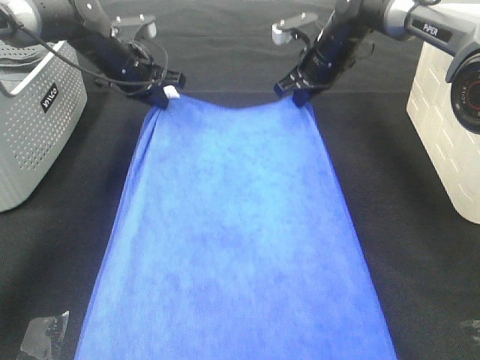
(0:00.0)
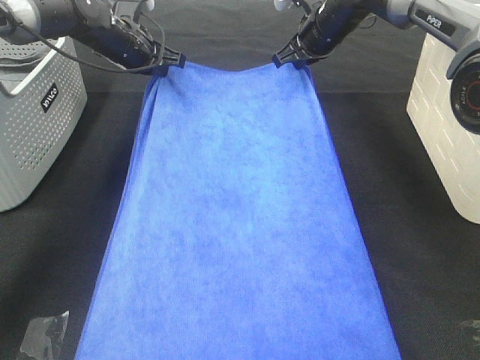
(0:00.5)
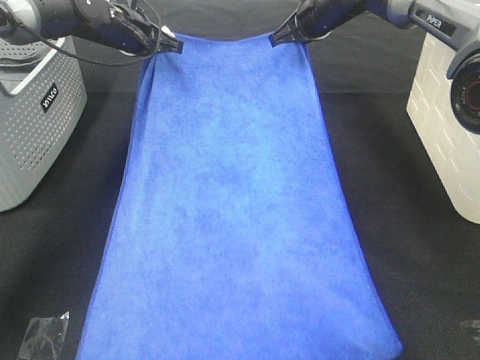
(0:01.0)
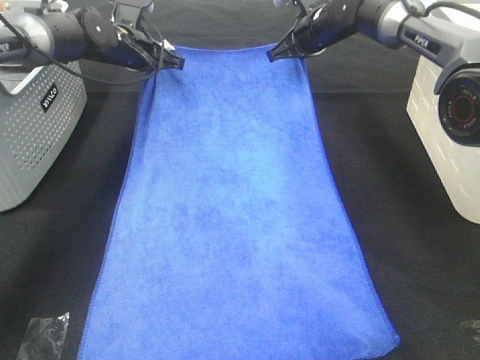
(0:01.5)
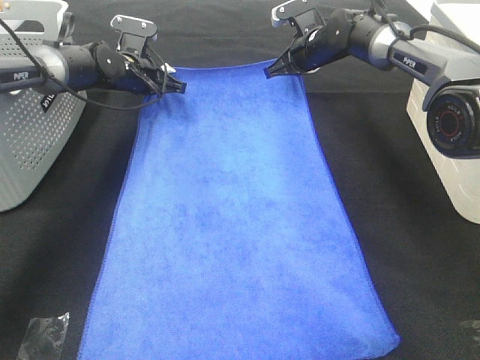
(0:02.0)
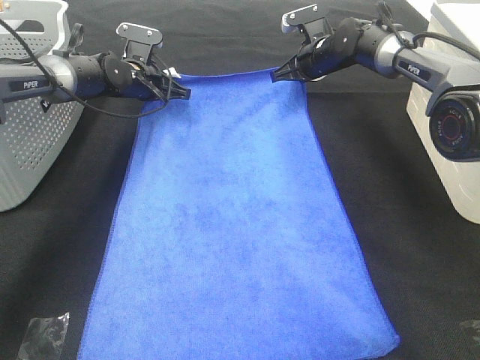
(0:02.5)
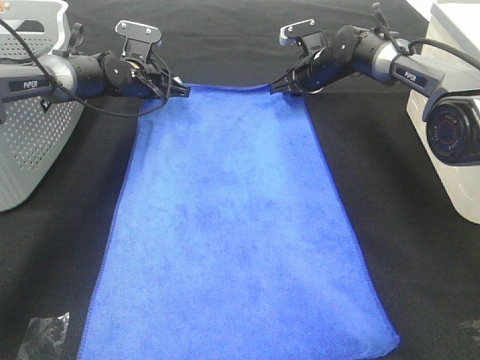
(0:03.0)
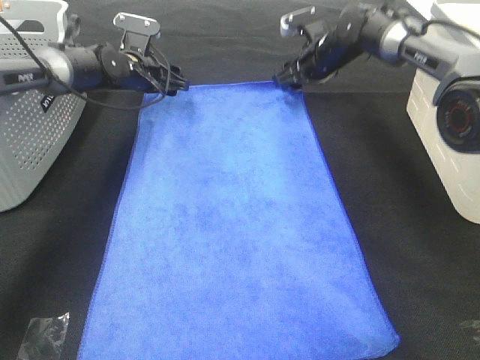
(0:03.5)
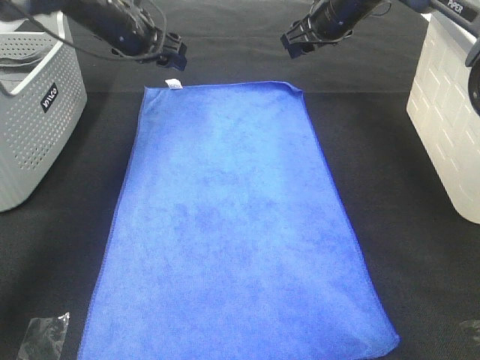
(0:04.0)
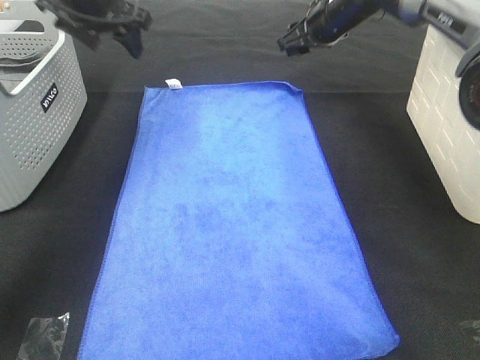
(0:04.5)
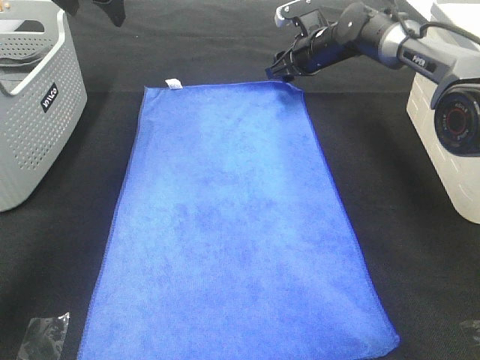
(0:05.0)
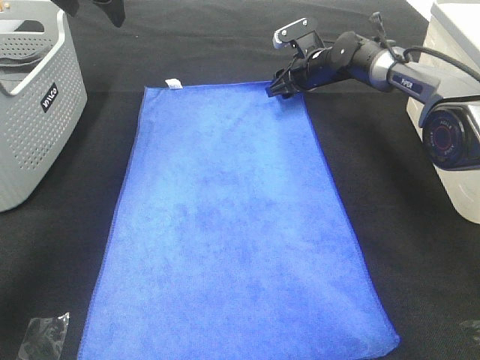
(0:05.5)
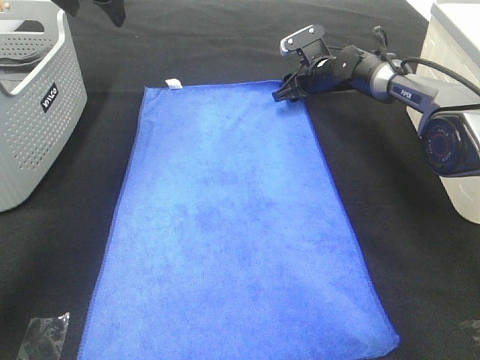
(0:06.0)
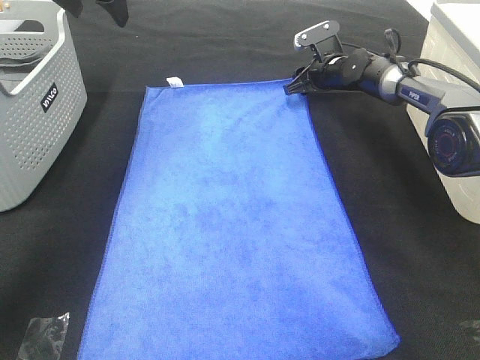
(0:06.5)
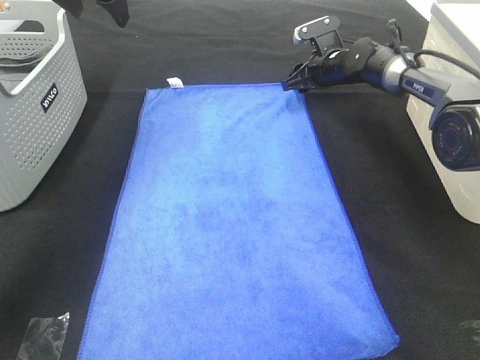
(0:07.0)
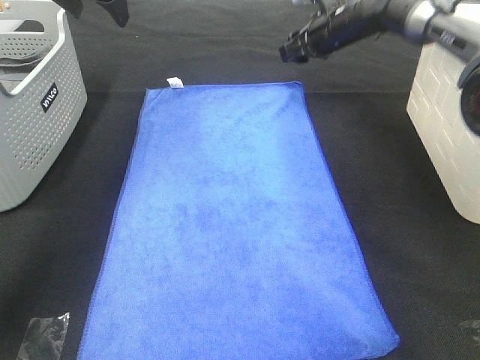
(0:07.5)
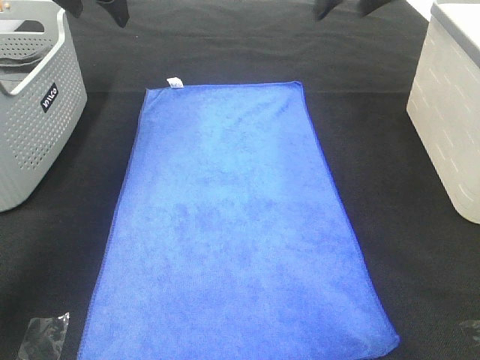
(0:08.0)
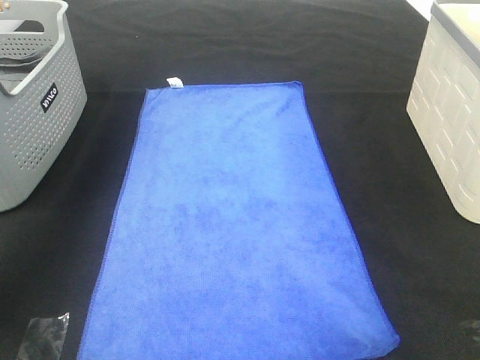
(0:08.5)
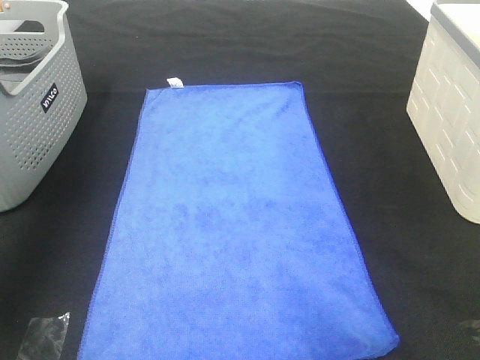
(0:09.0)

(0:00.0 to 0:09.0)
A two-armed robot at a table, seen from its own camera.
Task of the whole recording: Remove the towel and place it.
0:00.0 - 0:02.0: The right gripper moves approximately 5 cm, while the left gripper goes about 5 cm downward.
0:02.0 - 0:04.5: The left gripper is displaced upward and backward by about 20 cm, and opens; the right gripper heads upward, covering some 5 cm, and opens up.
0:04.5 - 0:07.0: The right gripper is displaced downward by some 10 cm.
0:07.0 - 0:09.0: The right gripper is displaced upward and backward by approximately 50 cm. The left gripper goes roughly 25 cm backward, to the left and upward.

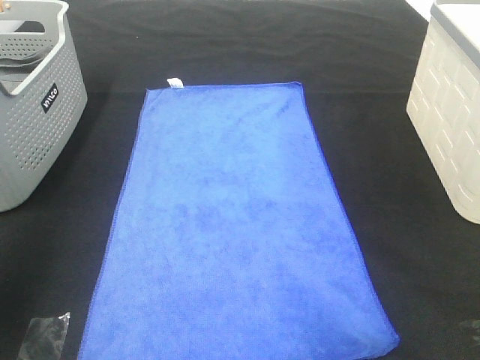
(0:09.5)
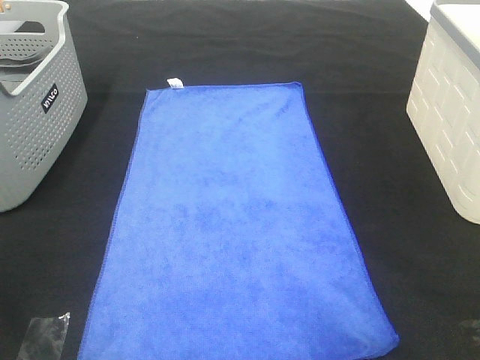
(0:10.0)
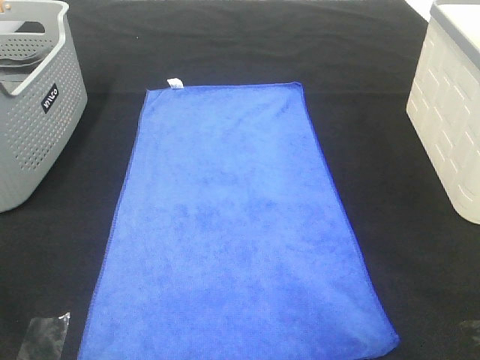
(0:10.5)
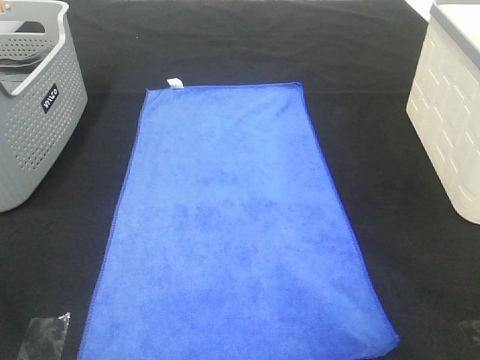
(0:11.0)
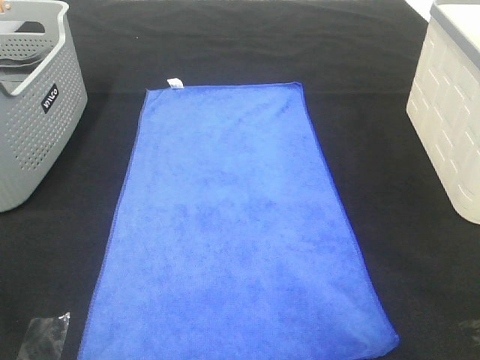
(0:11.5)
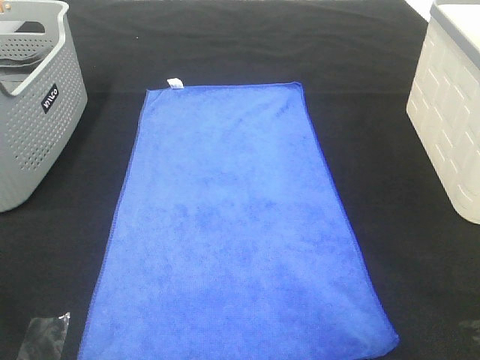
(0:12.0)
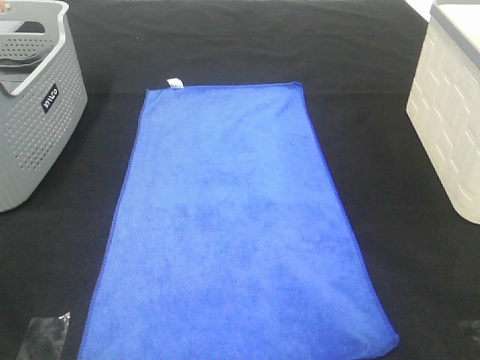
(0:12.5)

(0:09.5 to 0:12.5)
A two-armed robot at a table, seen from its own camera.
Task of the whole recording: Remove the towel and place it.
0:11.0 - 0:12.5: The two grippers keep their place.

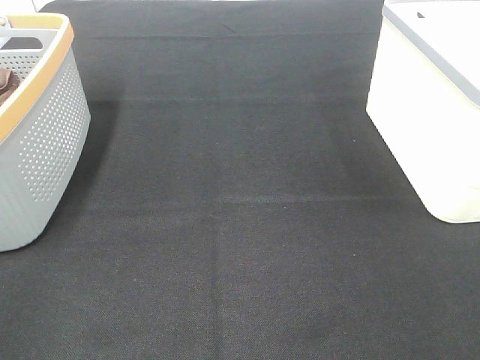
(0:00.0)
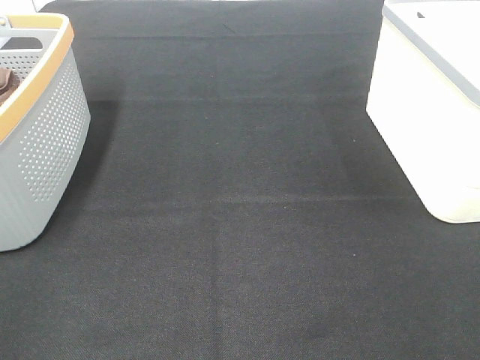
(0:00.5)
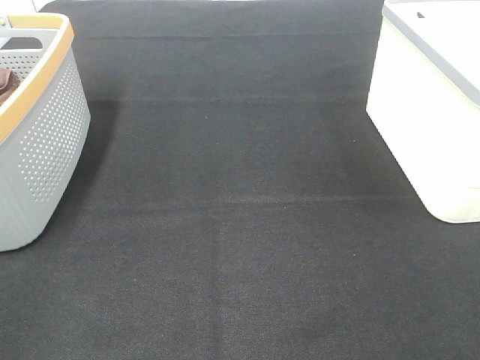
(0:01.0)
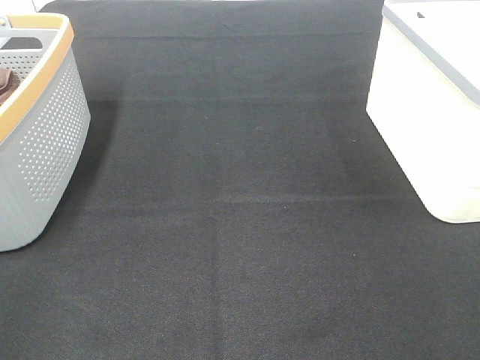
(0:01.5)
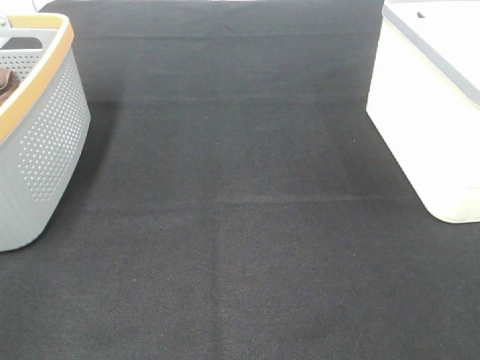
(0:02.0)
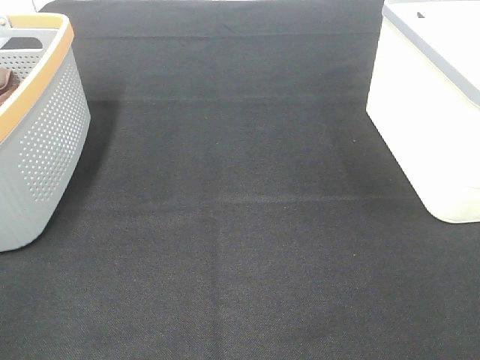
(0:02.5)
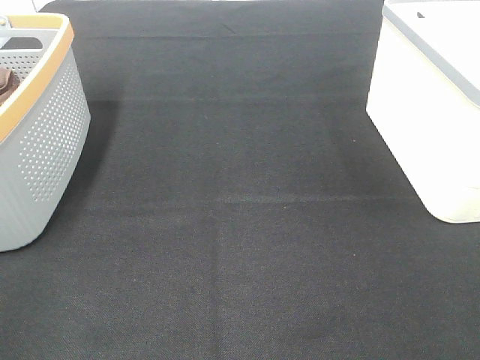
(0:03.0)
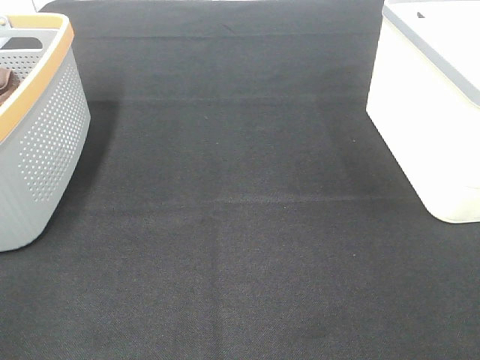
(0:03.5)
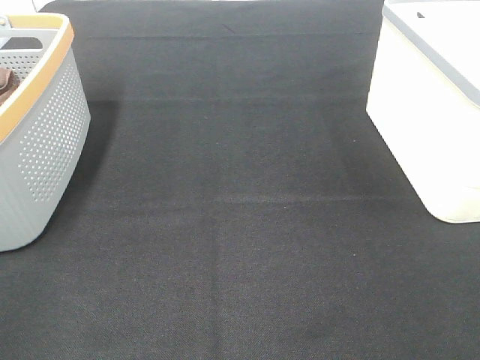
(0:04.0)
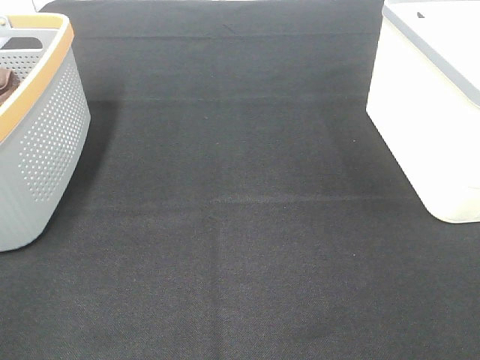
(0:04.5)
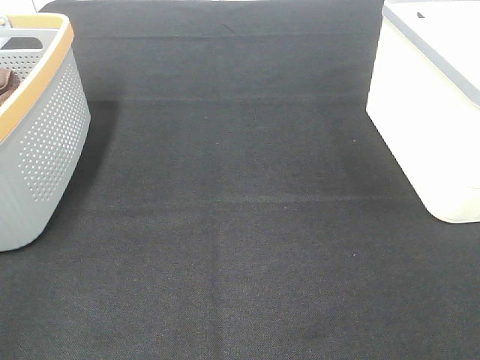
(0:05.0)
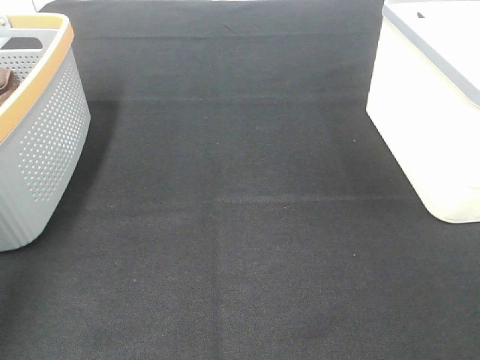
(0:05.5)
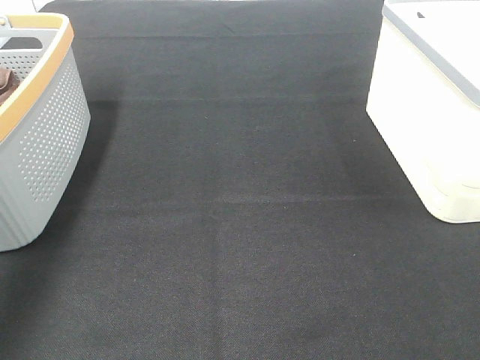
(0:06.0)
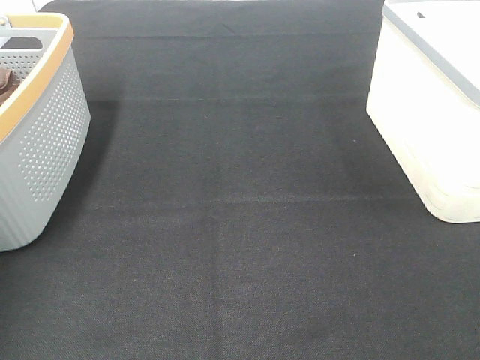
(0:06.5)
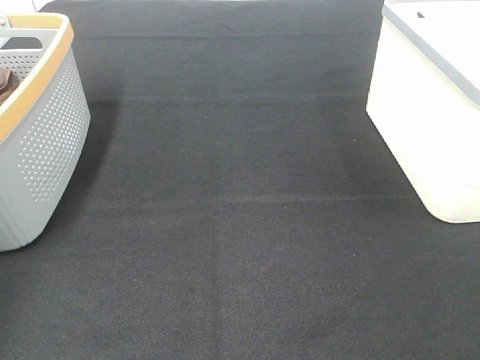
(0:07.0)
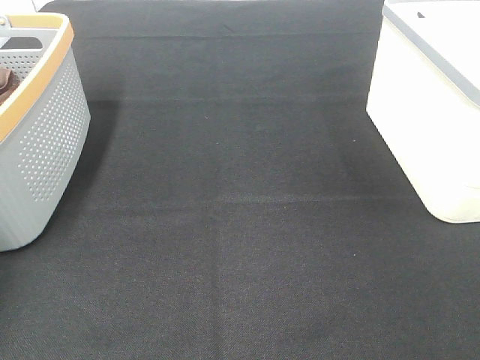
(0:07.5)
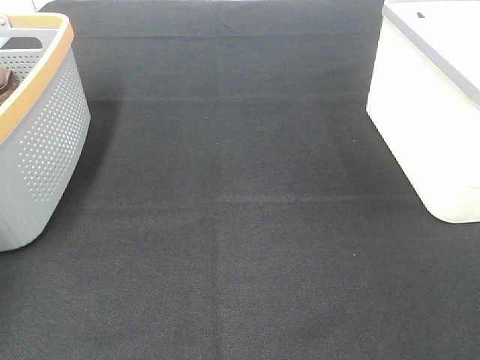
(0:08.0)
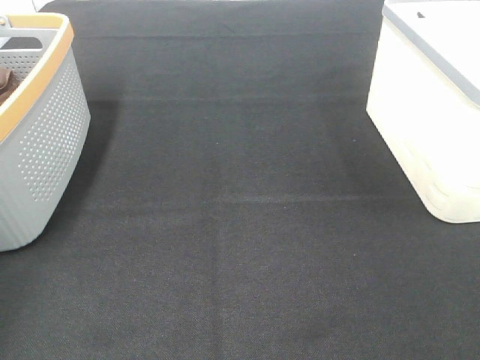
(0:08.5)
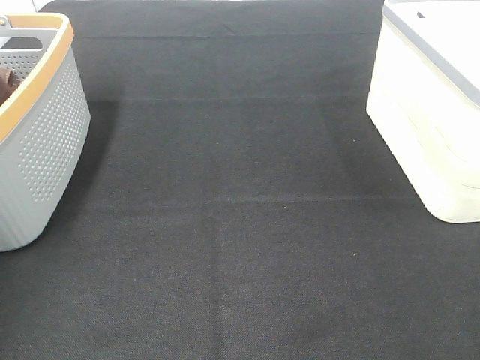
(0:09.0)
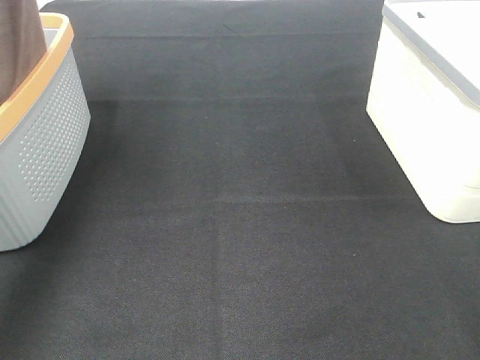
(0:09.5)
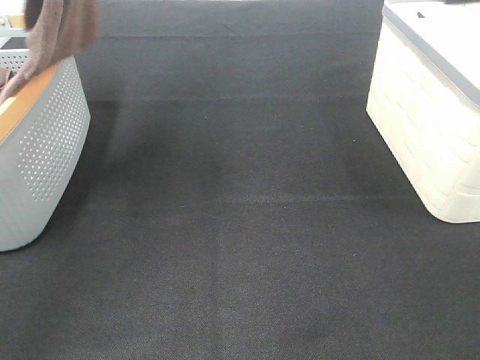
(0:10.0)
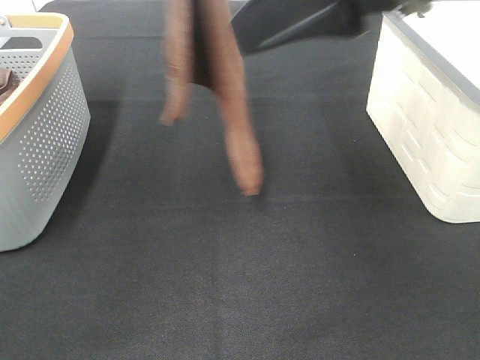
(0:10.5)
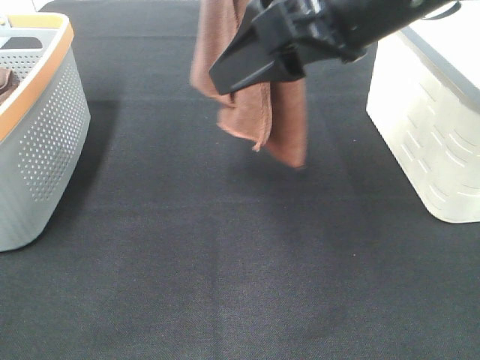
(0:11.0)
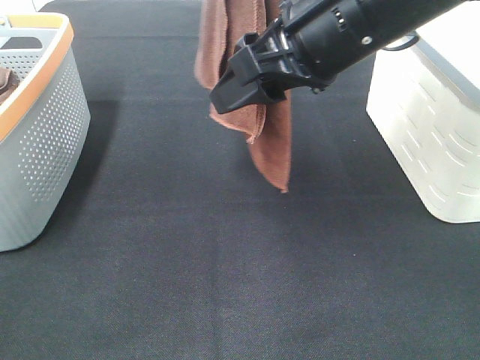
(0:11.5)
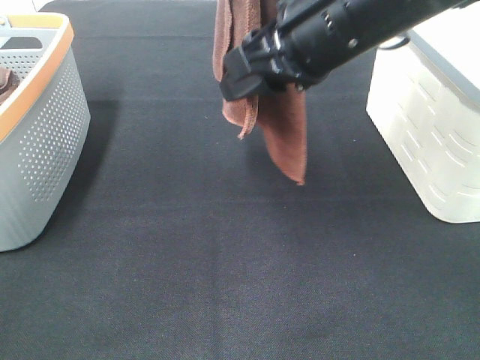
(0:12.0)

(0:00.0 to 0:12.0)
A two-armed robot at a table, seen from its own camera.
Task of the whole recording: Remove the towel and place it.
Step, 0:08.5 - 0:11.0: Right hand: grab a corner of the brown towel and straighten it.
0:00.0 - 0:04.0: The two grippers keep their place.
0:04.0 - 0:06.0: The left gripper goes roughly 30 cm forward.
0:06.0 - 0:08.0: The left gripper shifts approximately 20 cm forward, to the left and downward, and closes its fingers.
0:08.0 - 0:10.0: The left gripper shifts approximately 40 cm upward, to the right and backward. Meanwhile the right gripper is displaced forward, upward and to the left by about 20 cm.
0:10.0 - 0:12.0: The right gripper travels forward, to the left and downward by about 20 cm, and closes up; the left gripper shifts roughly 10 cm to the right.

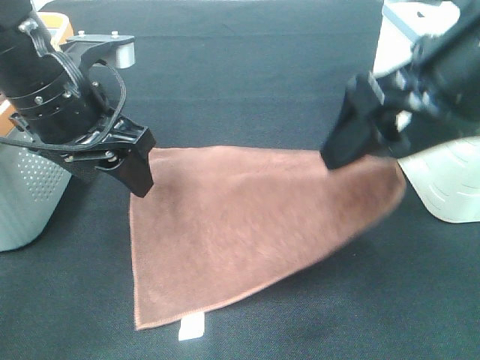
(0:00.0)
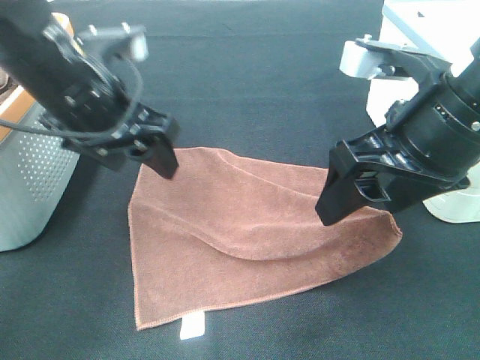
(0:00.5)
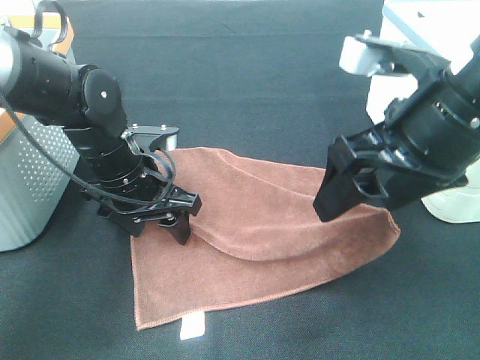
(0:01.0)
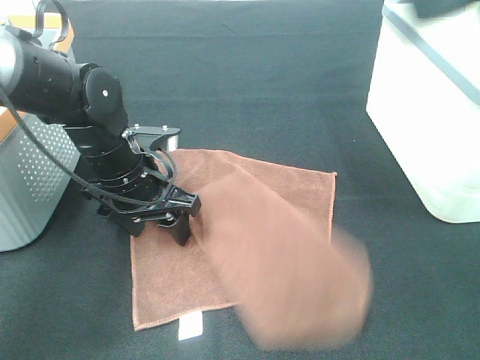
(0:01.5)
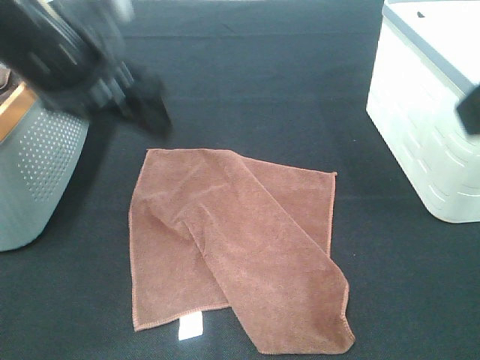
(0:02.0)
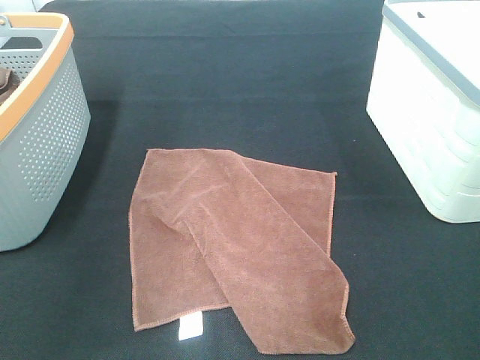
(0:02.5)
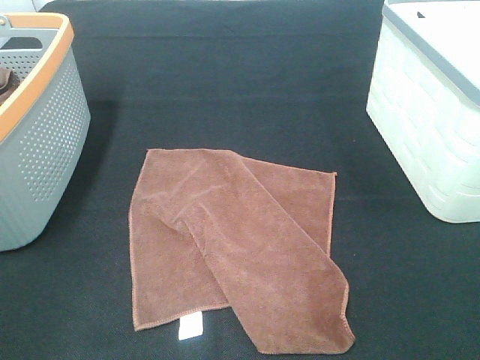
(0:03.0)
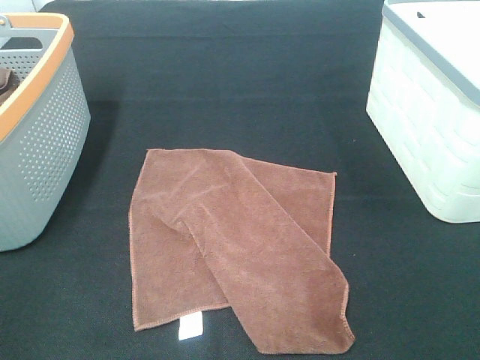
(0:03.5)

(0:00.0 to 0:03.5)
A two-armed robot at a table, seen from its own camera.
Task of the whole recording: Remove the towel and place it.
0:00.0 - 0:02.0: The right gripper swings up and down, roughly 20 cm each way, with 2 reversals. The left gripper reaches some 15 cm downward, then returns.
0:02.0 - 0:03.5: The right gripper is displaced backward, downward and to the right by roughly 20 cm, while the left gripper shifts some 35 cm backward and to the left.
